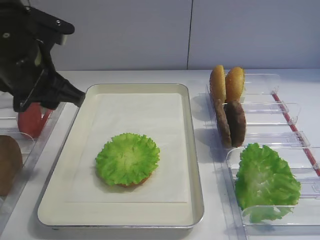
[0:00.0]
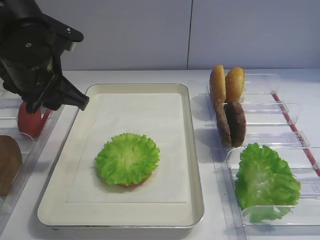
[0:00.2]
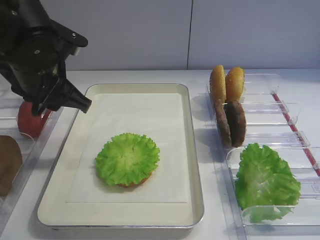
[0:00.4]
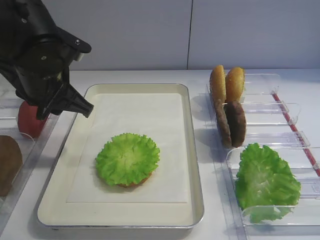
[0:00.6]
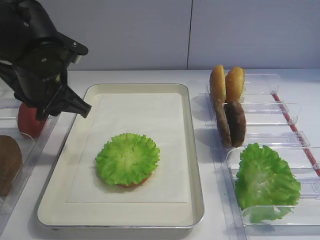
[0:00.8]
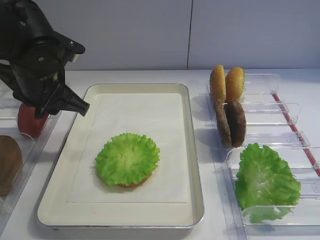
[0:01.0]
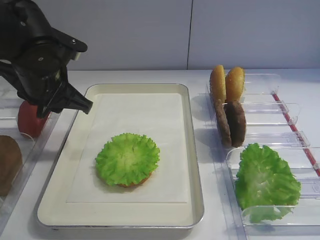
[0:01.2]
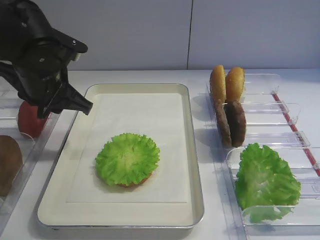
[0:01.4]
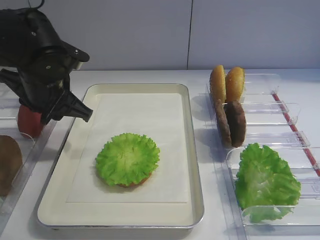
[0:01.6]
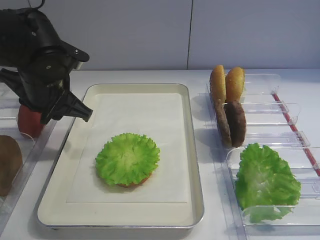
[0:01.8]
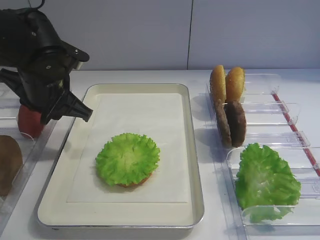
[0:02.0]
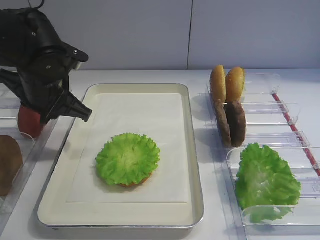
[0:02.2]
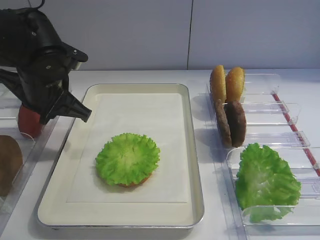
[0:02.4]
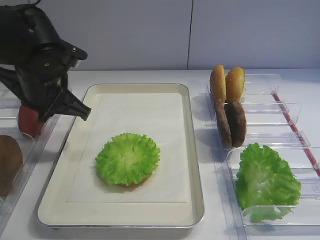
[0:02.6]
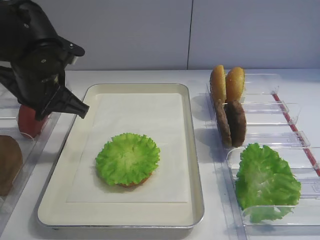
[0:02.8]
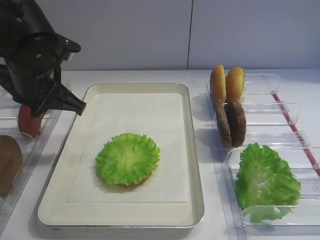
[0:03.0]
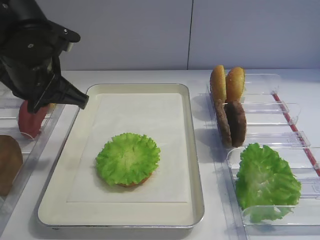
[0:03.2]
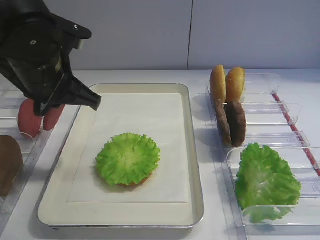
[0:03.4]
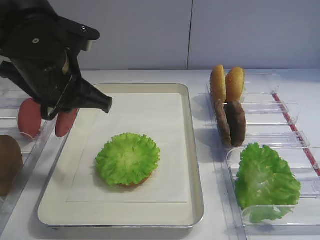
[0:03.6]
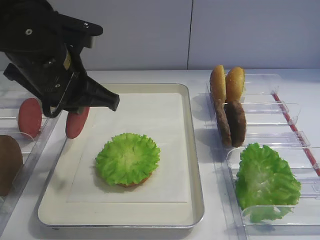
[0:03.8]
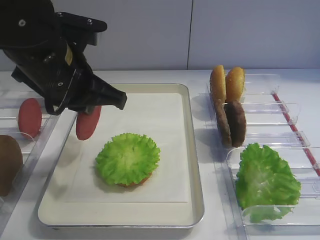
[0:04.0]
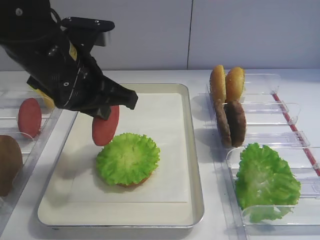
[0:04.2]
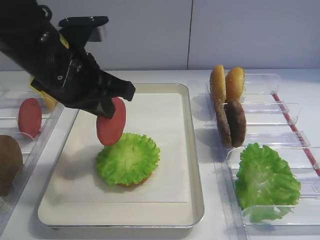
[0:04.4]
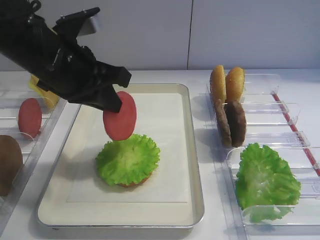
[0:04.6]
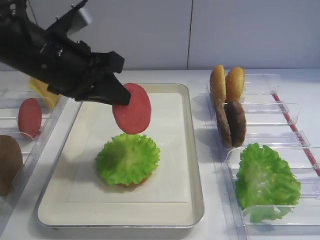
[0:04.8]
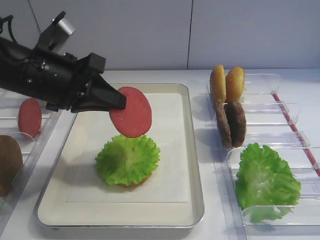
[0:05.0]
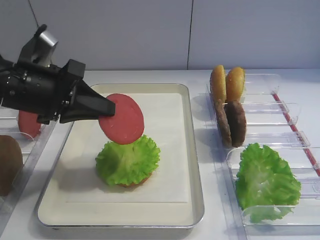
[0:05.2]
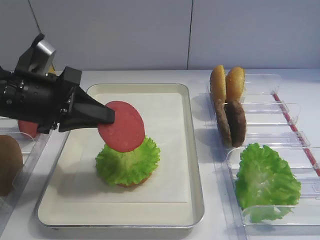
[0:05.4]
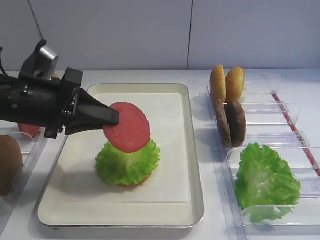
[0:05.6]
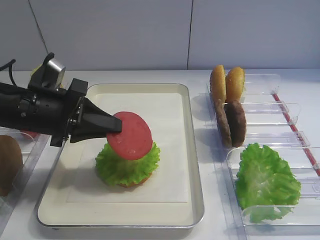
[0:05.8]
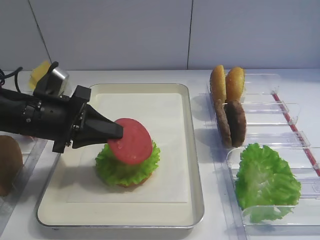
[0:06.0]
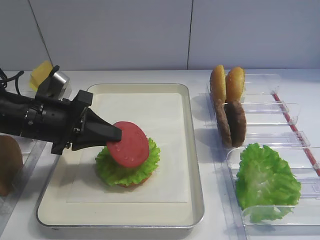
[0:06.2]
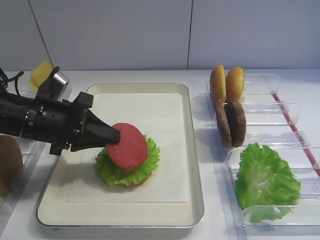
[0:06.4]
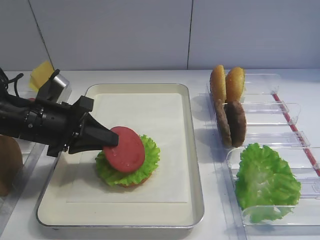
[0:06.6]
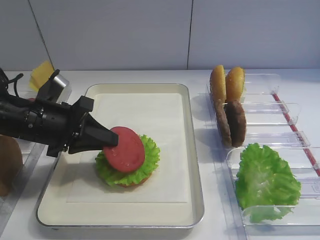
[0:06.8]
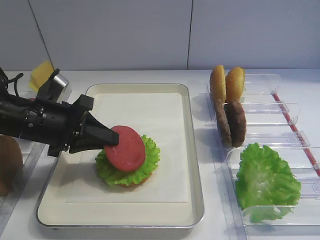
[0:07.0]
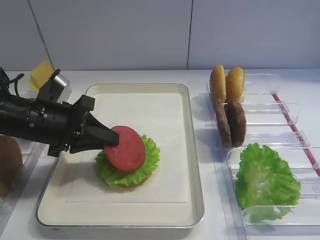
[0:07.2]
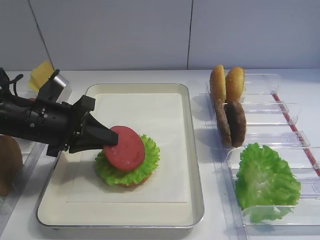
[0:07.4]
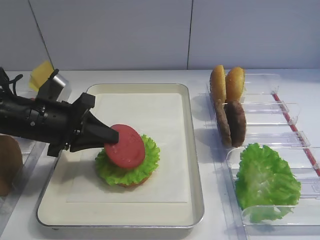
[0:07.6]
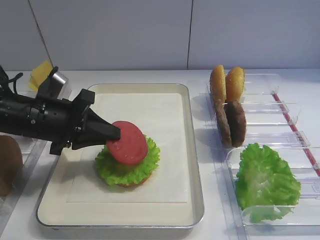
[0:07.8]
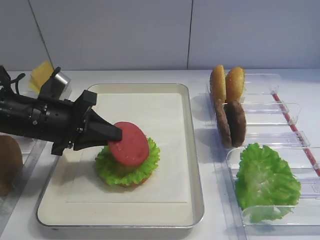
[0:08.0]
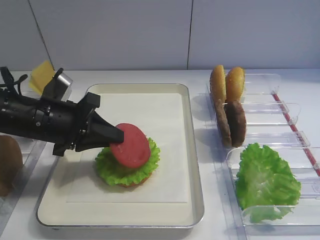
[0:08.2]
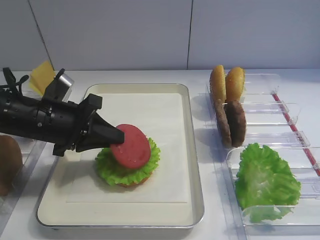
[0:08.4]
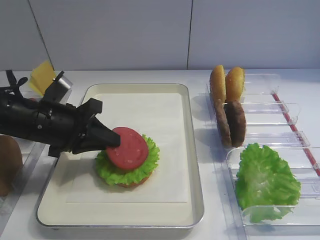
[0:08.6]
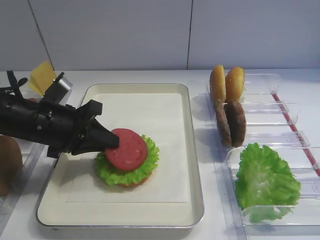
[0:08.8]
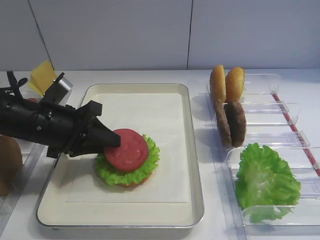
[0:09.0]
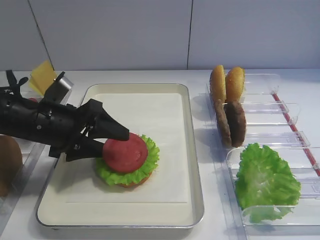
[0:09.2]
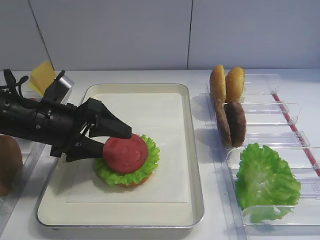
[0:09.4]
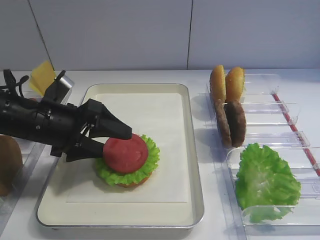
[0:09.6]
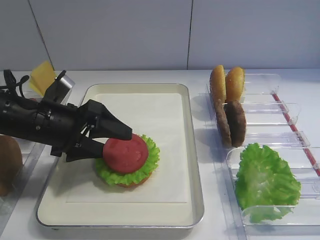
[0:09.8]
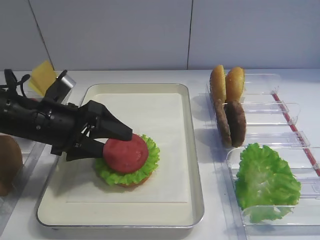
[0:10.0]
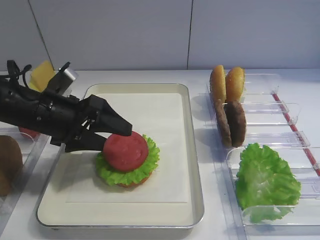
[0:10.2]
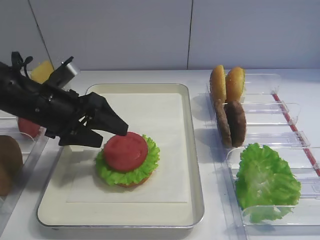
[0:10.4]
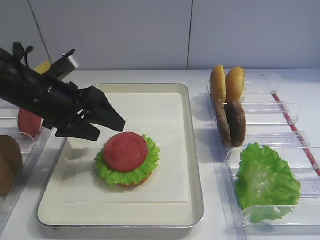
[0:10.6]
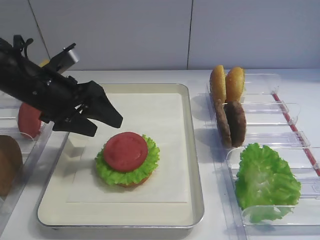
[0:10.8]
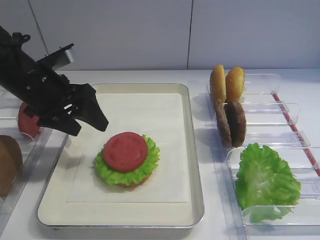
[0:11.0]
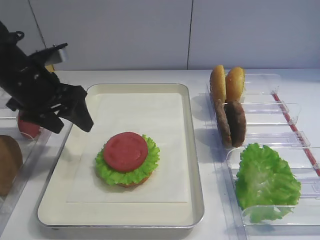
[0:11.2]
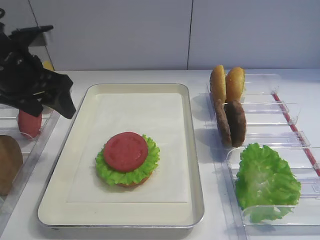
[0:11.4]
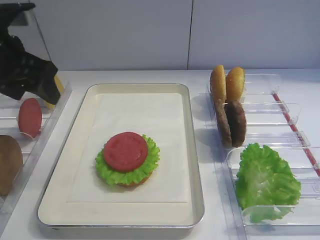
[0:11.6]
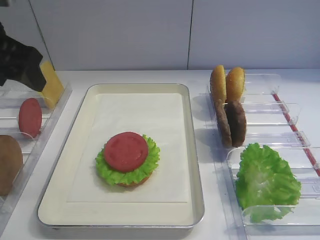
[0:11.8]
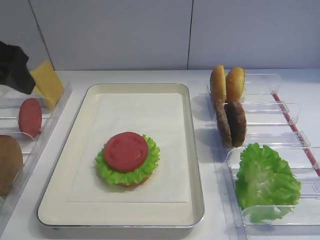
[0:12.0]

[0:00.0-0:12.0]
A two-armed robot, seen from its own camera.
Step, 0:00.0 to 0:03.2: Pick up the tomato slice with the left gripper.
Step, 0:03.6 to 0:11.4: Place the tomato slice on the lettuce leaf with the left gripper.
0:00.0 to 0:01.6: The left gripper moves downward, roughly 5 cm.
0:01.6 to 0:03.0: The left gripper closes its fingers.
0:03.0 to 0:04.4: The left gripper is displaced to the right by about 5 cm.
0:04.4 to 0:06.0: The left gripper heads downward and to the left, covering approximately 10 cm.
0:06.0 to 0:07.6: The grippers make only small movements.
0:07.6 to 0:09.0: The two grippers keep their place.
0:09.0 to 0:10.4: The left gripper opens its fingers.
0:10.4 to 0:12.0: The left gripper goes roughly 15 cm upward and to the left.

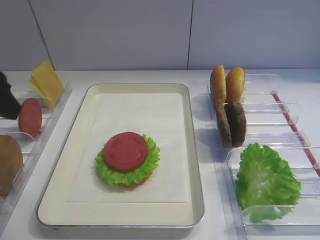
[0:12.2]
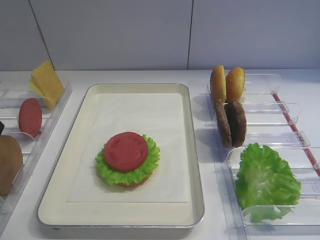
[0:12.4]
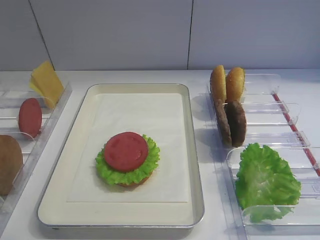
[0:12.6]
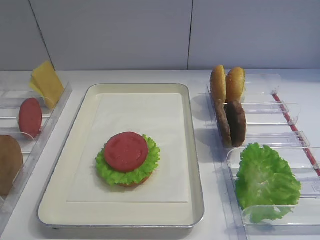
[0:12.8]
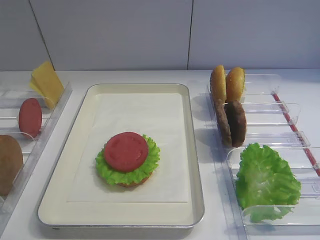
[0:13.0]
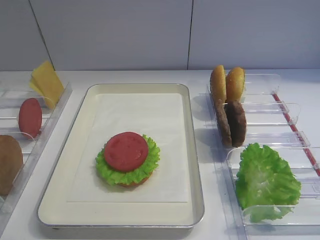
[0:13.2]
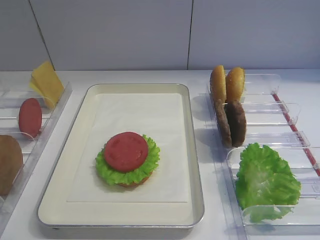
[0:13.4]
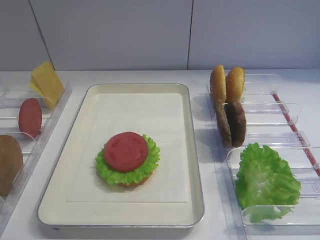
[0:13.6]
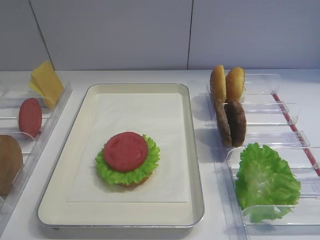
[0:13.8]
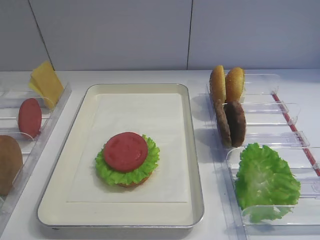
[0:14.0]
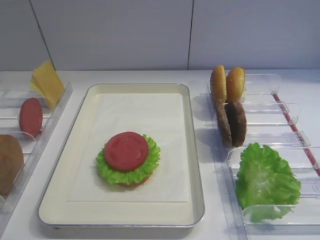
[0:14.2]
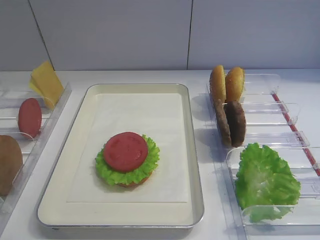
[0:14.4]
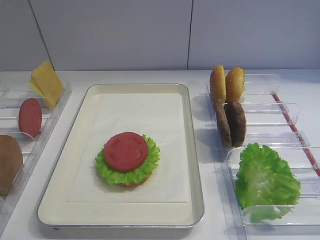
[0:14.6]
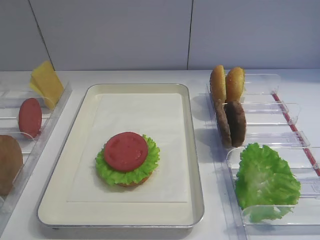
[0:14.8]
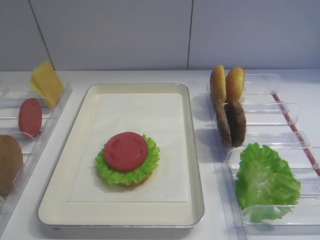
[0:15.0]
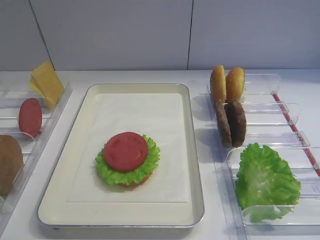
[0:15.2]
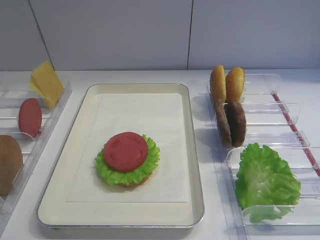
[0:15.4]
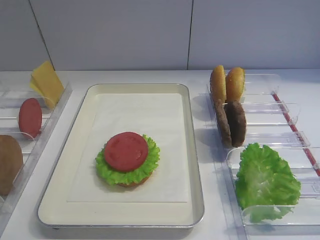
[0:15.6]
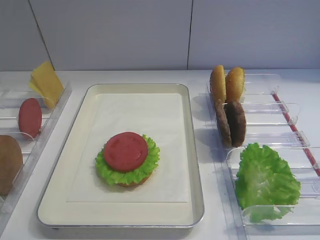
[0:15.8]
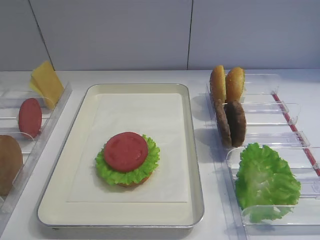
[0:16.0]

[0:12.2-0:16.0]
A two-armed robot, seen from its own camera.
0:12.2 to 0:13.4: The left gripper travels backward by roughly 20 cm.
0:14.8 to 0:16.0: Both grippers stay about where they are.

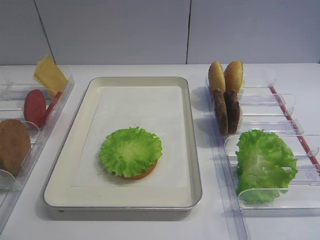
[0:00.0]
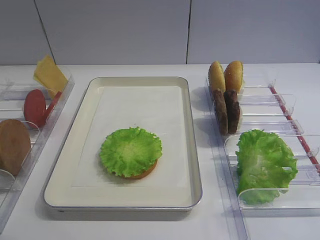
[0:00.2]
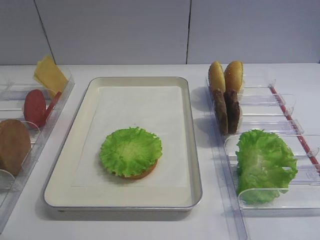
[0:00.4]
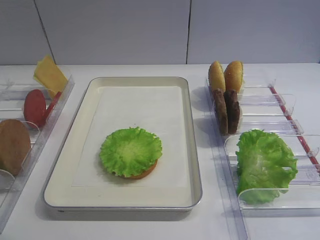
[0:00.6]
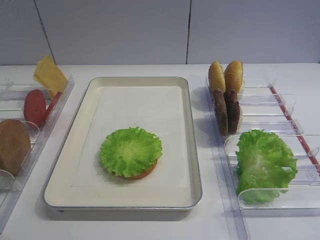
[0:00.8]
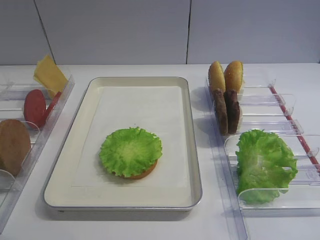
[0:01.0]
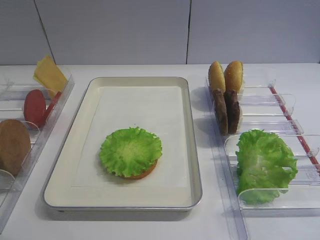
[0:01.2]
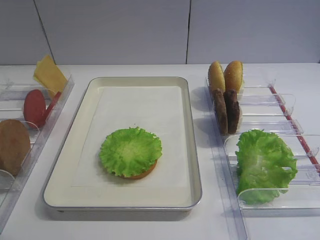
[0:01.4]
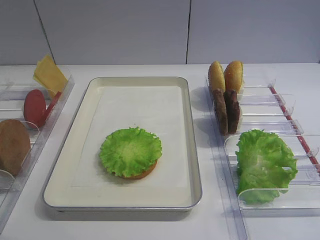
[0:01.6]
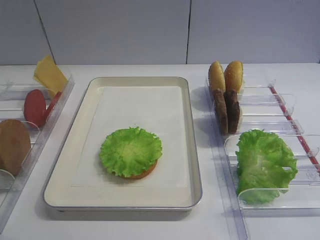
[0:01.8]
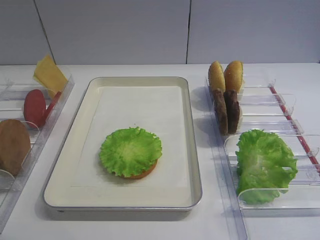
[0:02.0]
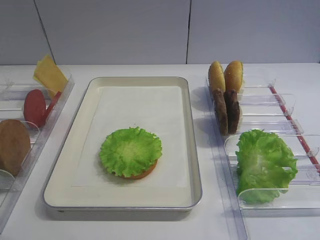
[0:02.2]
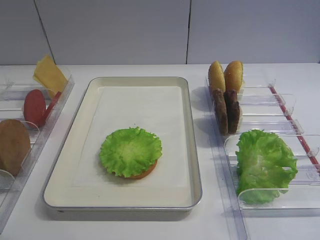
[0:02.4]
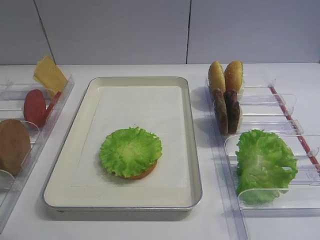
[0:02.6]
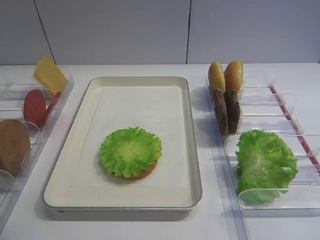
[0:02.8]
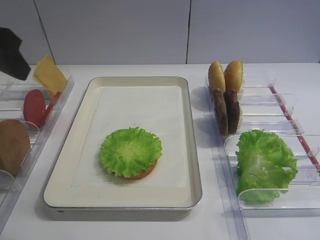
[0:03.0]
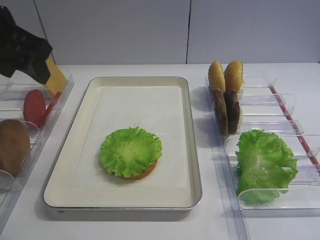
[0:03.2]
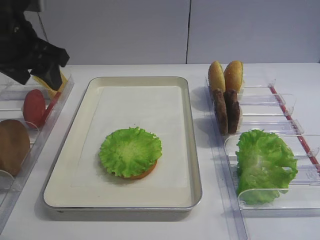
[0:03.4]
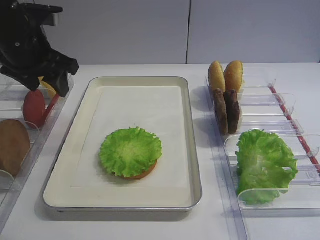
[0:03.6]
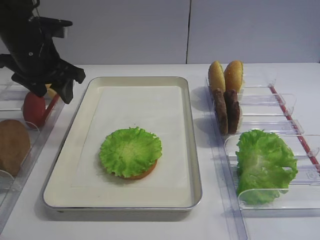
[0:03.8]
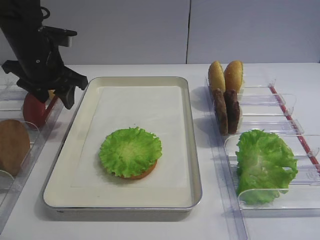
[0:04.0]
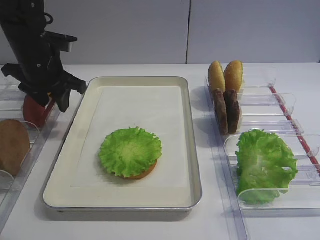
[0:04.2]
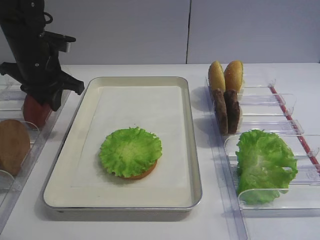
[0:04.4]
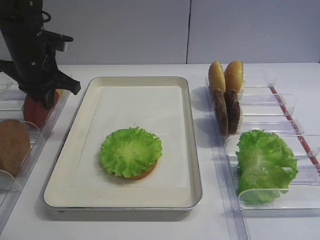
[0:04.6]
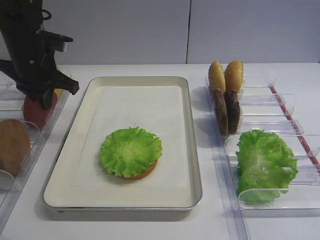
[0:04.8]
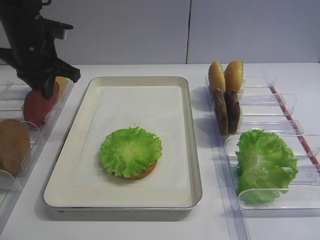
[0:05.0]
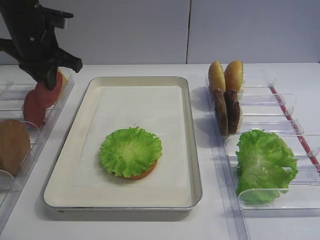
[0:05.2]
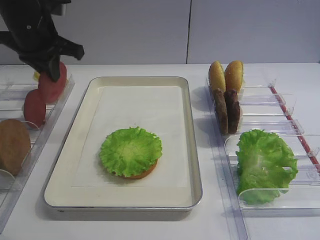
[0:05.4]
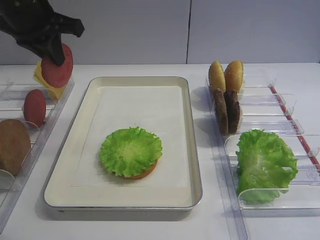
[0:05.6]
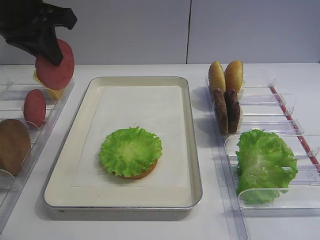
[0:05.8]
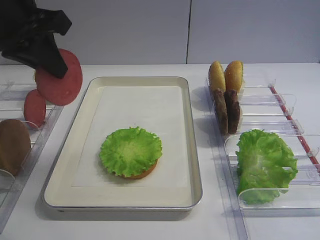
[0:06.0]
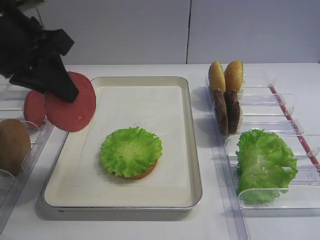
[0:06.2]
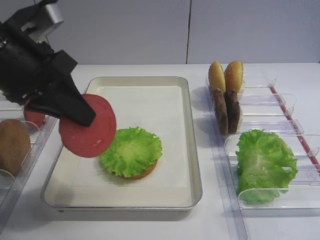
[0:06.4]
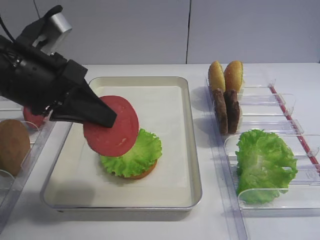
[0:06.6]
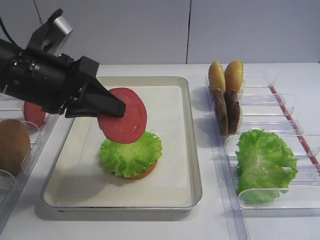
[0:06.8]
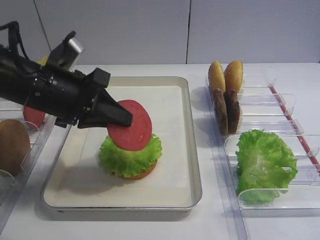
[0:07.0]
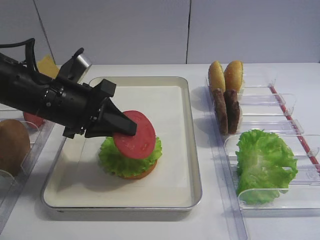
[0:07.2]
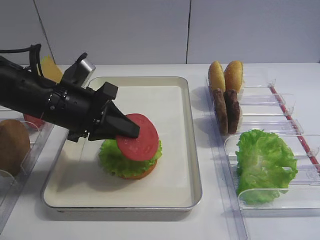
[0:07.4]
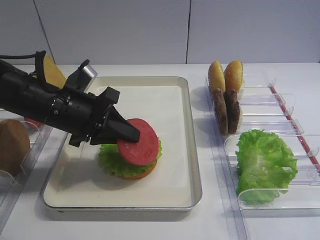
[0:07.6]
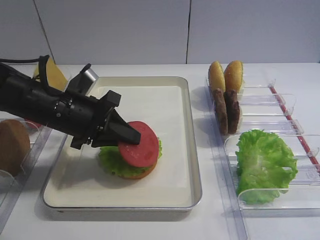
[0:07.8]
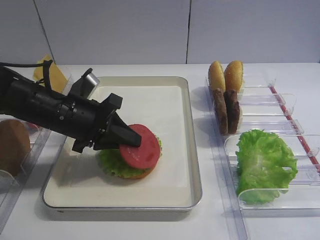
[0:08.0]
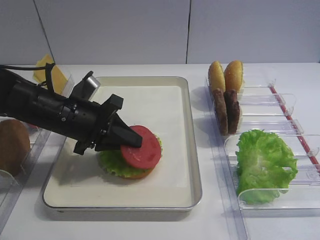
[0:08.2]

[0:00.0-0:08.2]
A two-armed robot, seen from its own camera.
Step, 0:00.0 to 0:05.2: Pick up the tomato slice with the left gripper.
0:01.6 to 0:03.2: The left gripper heads forward, covering roughly 30 cm.
0:03.2 to 0:05.0: The left gripper heads forward and downward, covering approximately 15 cm, and closes its fingers.
0:05.0 to 0:06.6: The left gripper shifts about 15 cm backward.
0:06.6 to 0:08.2: The left gripper heads downward and forward, covering about 15 cm.
